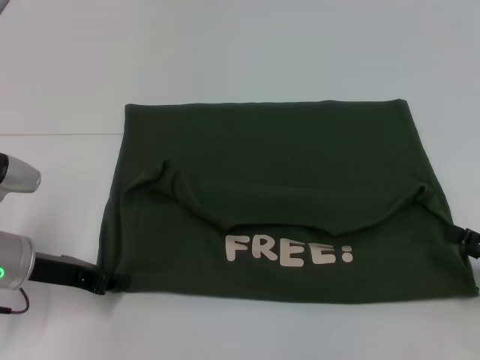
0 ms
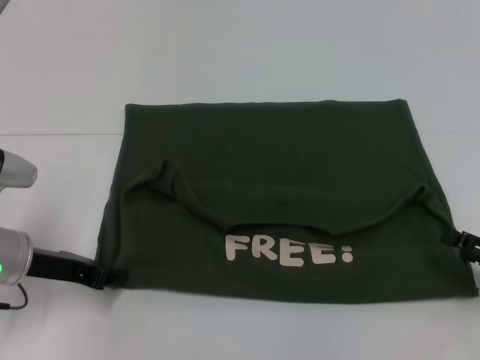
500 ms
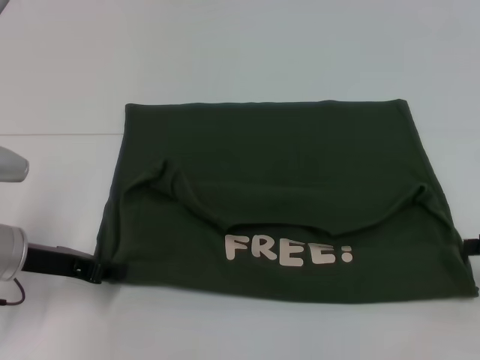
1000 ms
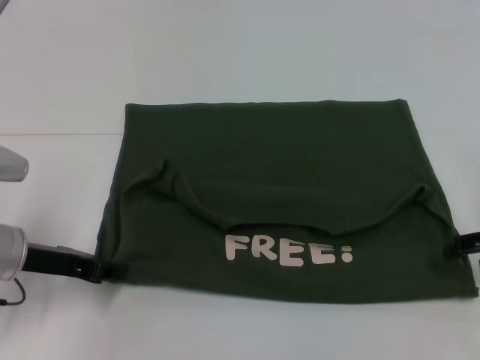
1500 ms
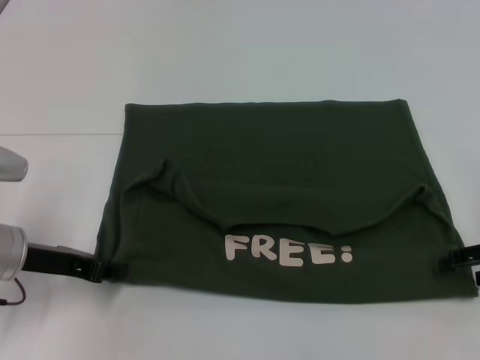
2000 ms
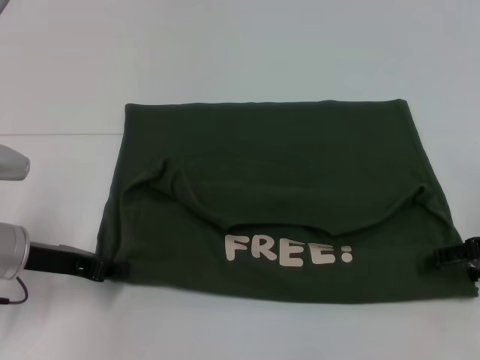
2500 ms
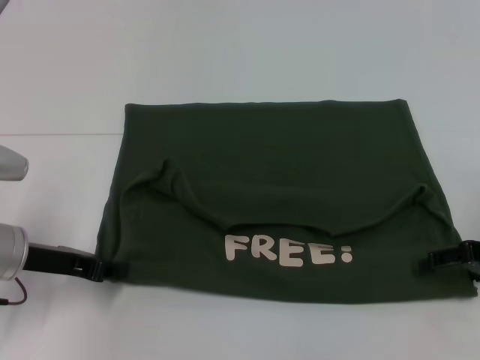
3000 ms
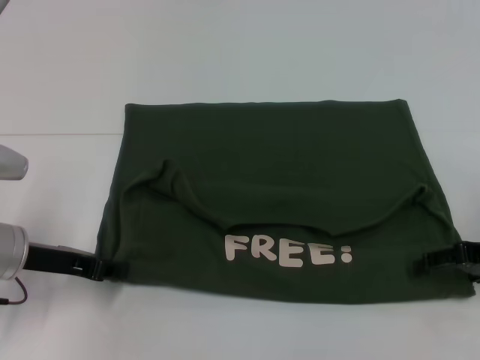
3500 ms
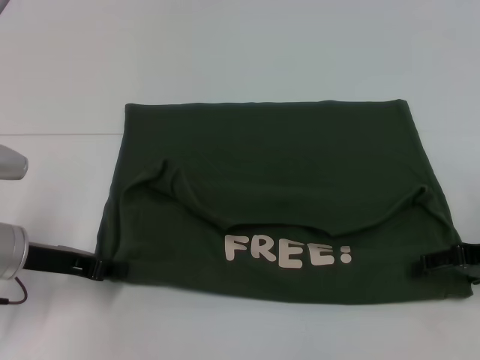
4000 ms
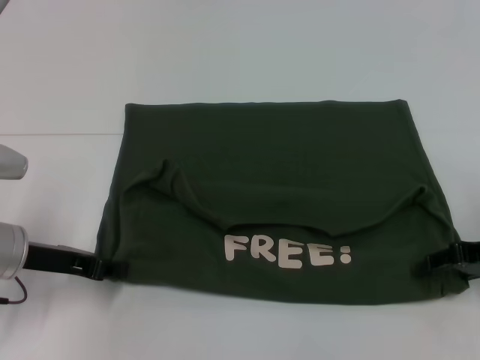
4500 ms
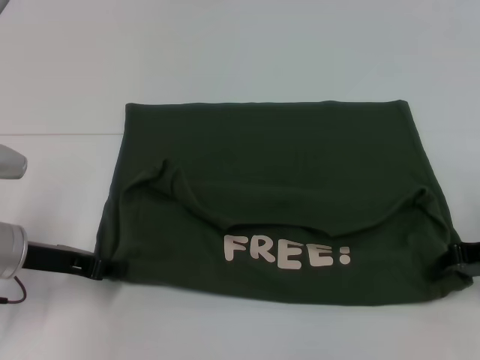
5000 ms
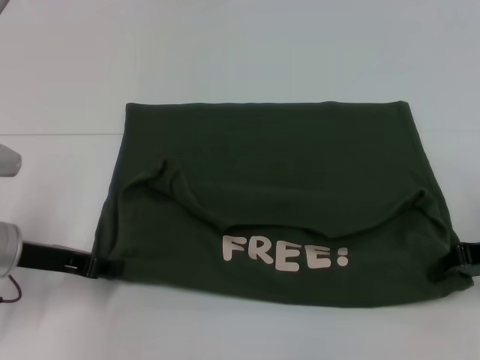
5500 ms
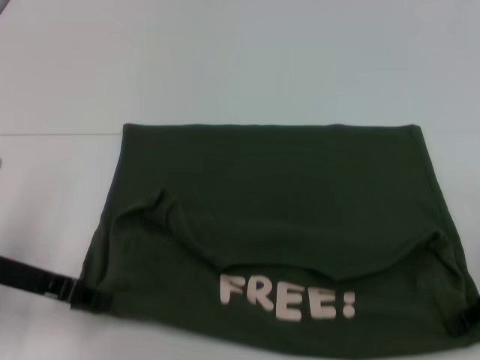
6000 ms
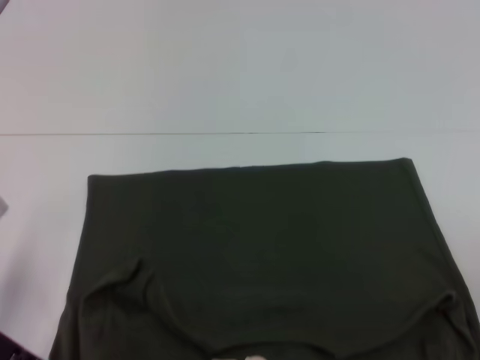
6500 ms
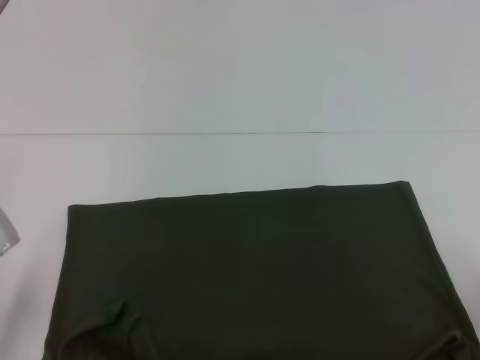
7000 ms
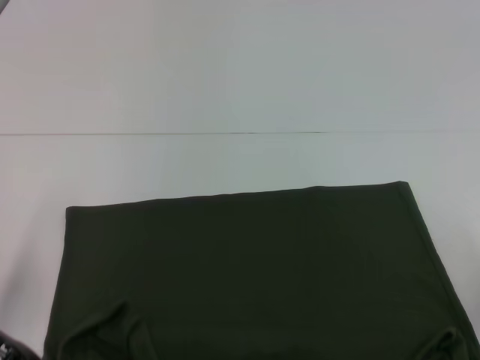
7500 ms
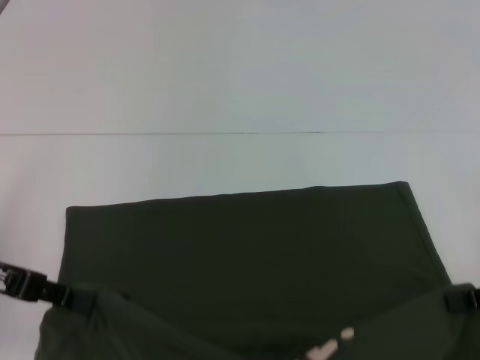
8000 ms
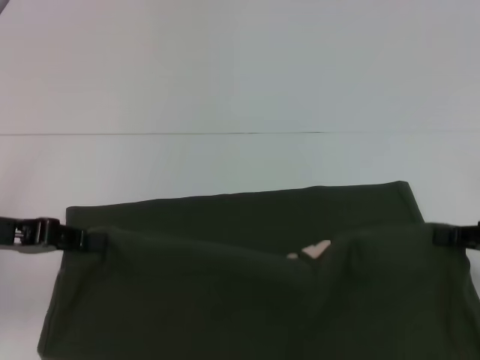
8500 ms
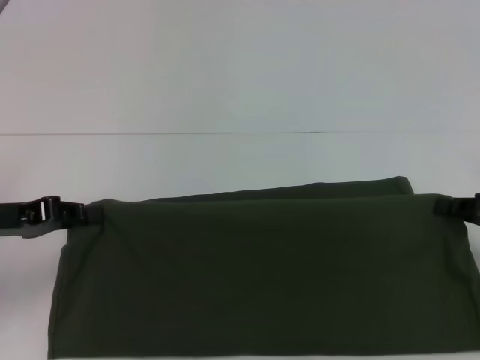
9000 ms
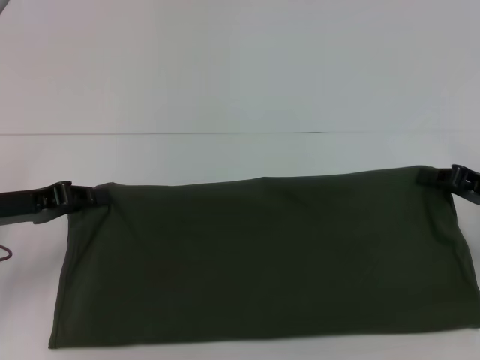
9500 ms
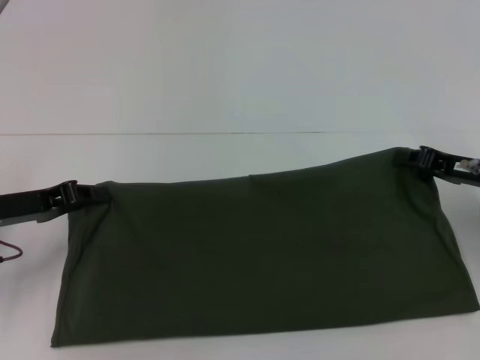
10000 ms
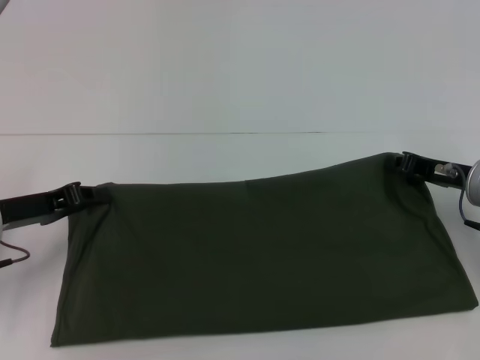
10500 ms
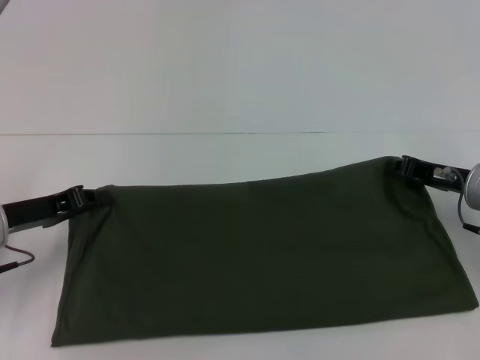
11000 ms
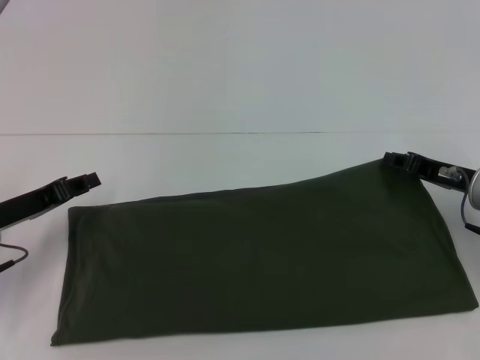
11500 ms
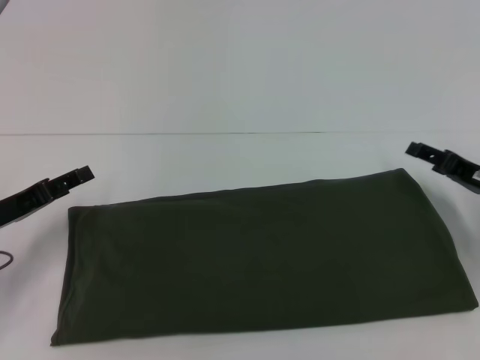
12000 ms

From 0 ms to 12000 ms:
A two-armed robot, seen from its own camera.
Step, from 0 ms to 7500 ms: Pull the clothes with your left hand.
Step, from 0 ms to 7500 ms: Pull the clothes with your right hand.
From 0 ms to 2000 ms: The right gripper moves forward and upward, approximately 10 cm.
From 2000 ms to 4000 ms: The grippers move only a little.
From 4000 ms to 6000 ms: The right gripper closes up.
From 6000 ms to 8000 ms: The left gripper ends up approximately 5 cm from where it was.
From 8000 ms to 10000 ms: The left gripper shifts about 5 cm downward. The right gripper shifts roughly 10 cm forward and to the left.
From 10000 ms to 12000 ms: The left gripper opens up; the right gripper opens up.

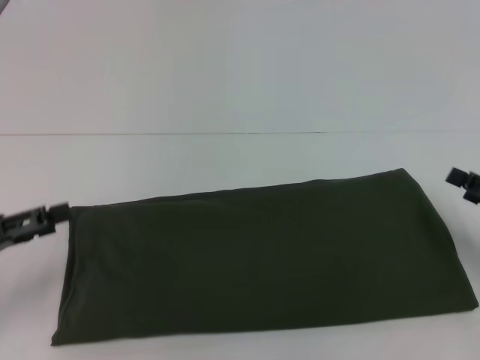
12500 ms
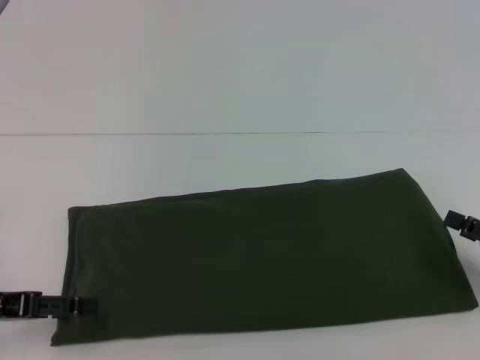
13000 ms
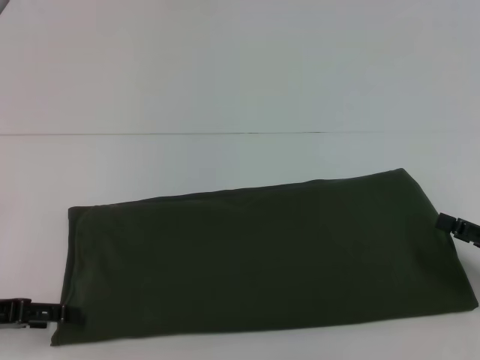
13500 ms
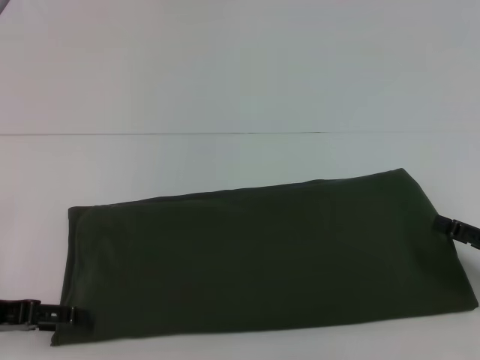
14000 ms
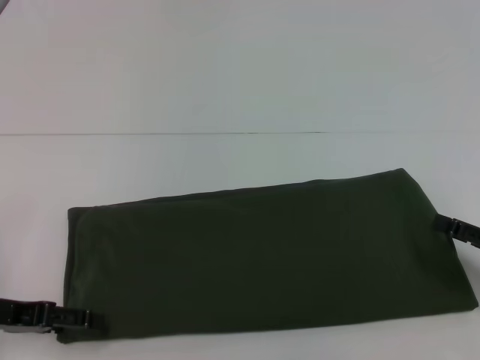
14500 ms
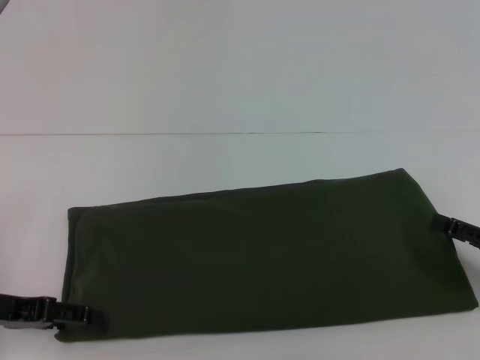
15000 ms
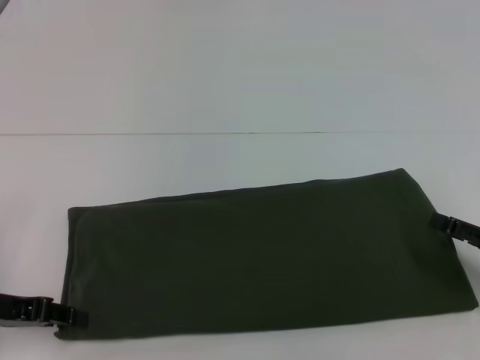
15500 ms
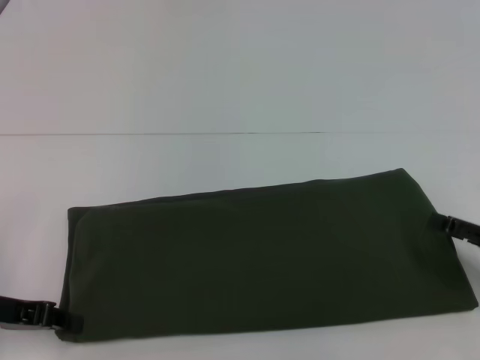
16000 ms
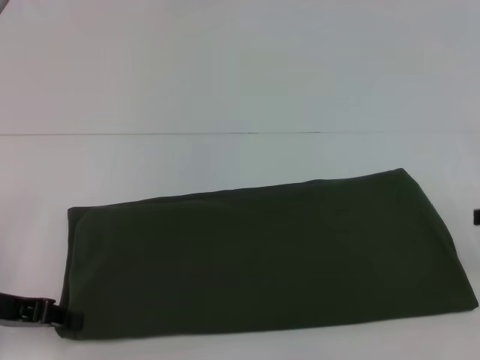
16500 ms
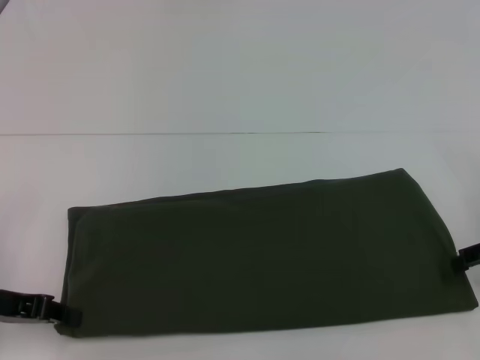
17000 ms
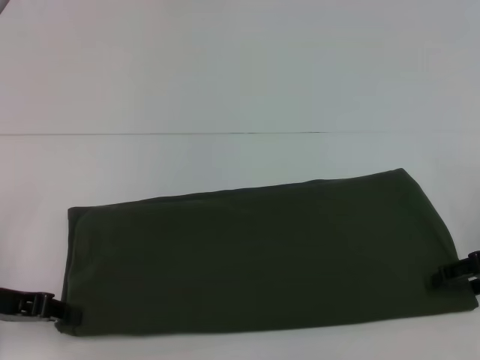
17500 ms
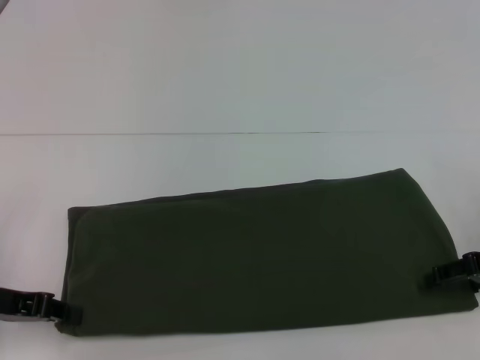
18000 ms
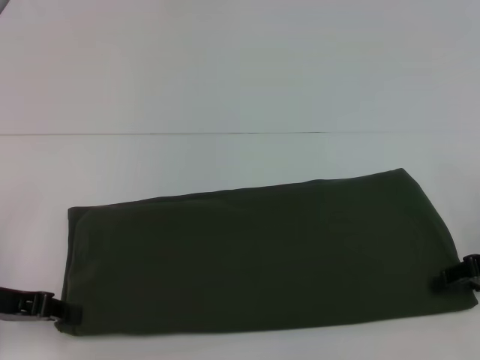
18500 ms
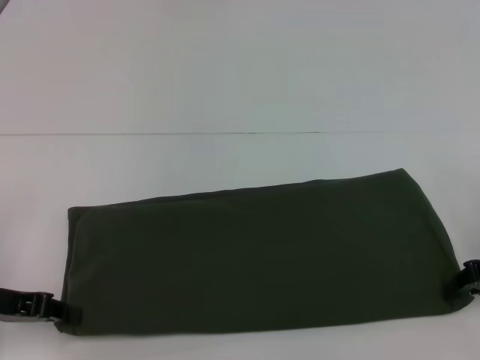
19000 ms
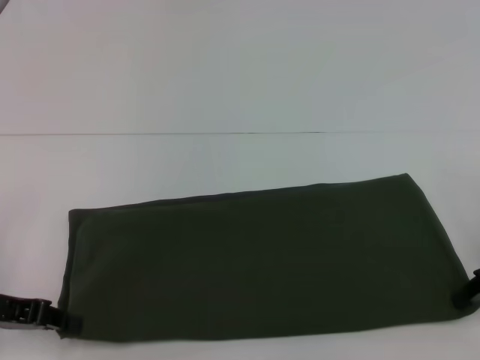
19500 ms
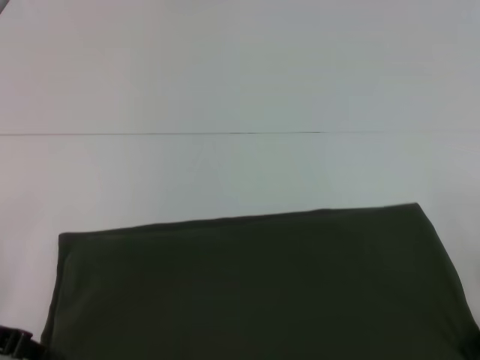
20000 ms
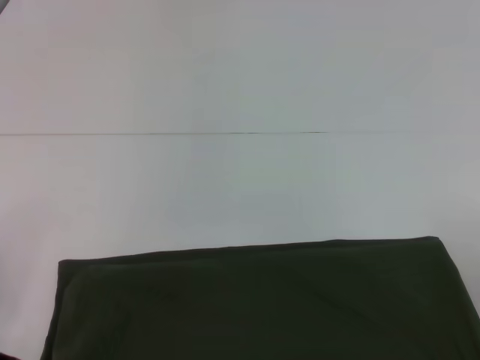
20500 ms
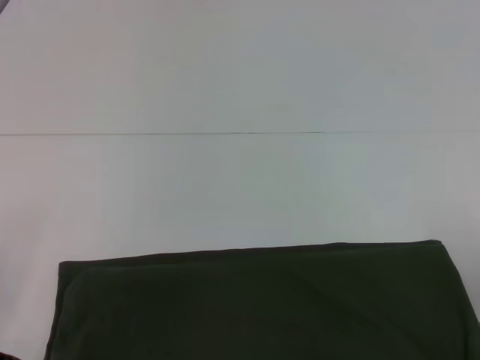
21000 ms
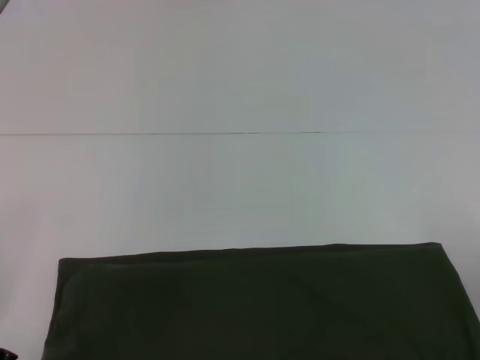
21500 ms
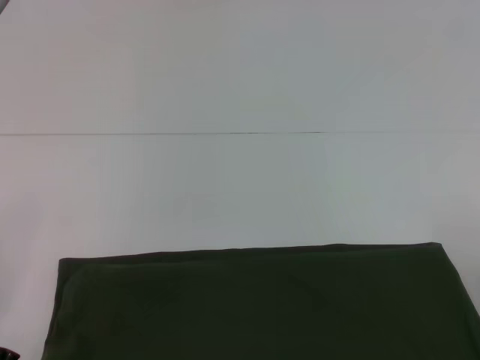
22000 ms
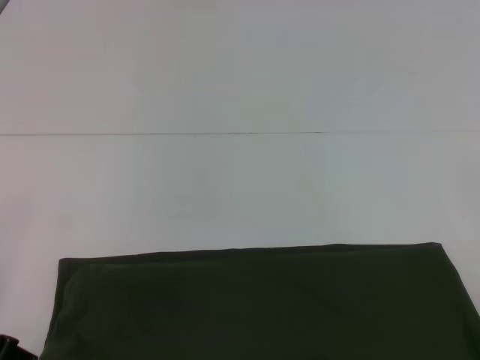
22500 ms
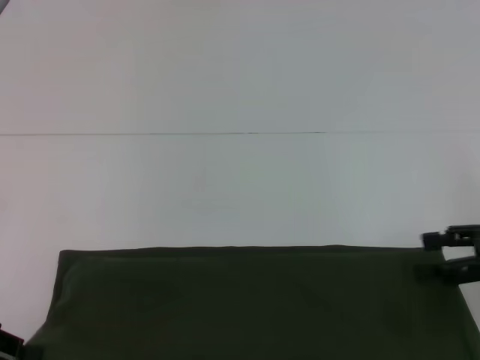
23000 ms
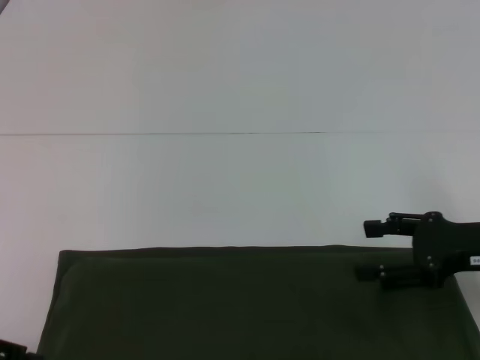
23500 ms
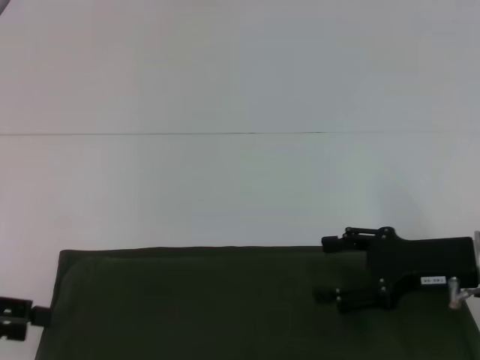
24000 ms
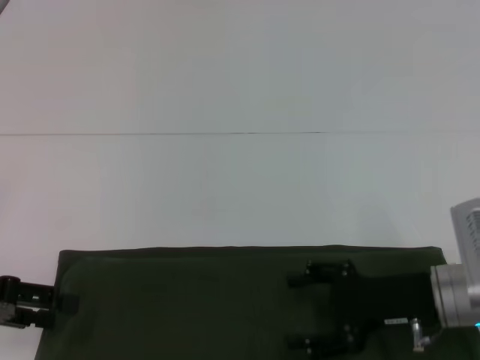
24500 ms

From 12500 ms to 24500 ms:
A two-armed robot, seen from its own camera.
From 14500 ms to 16500 ms: The left gripper closes up; the right gripper travels upward and forward by approximately 10 cm.
From 16500 ms to 18500 ms: The right gripper travels to the left by roughly 5 cm.
From 18500 ms to 20500 ms: The right gripper is displaced backward by roughly 5 cm, and closes.
From 20500 ms to 22500 ms: The right gripper goes approximately 5 cm upward, and opens.
From 22500 ms to 24500 ms: The right gripper heads to the left and downward, covering approximately 20 cm, and opens, while the left gripper opens its fingers.

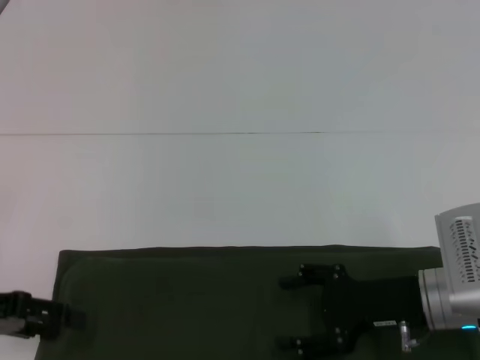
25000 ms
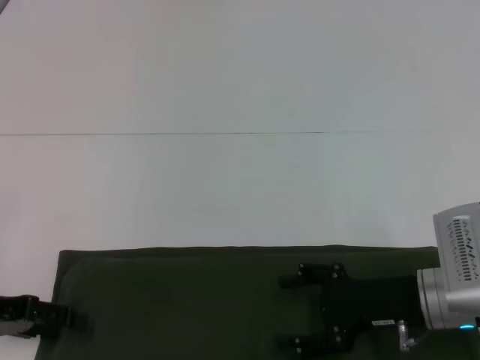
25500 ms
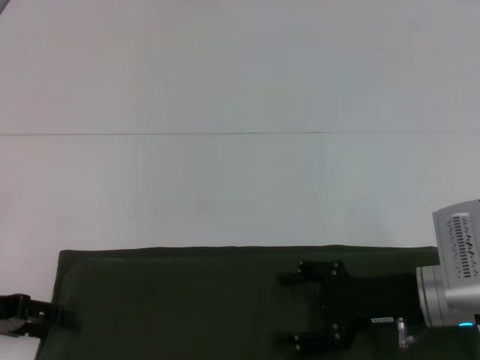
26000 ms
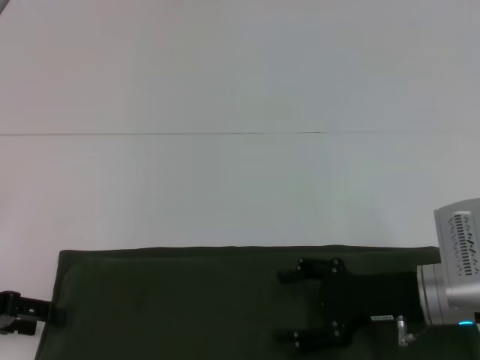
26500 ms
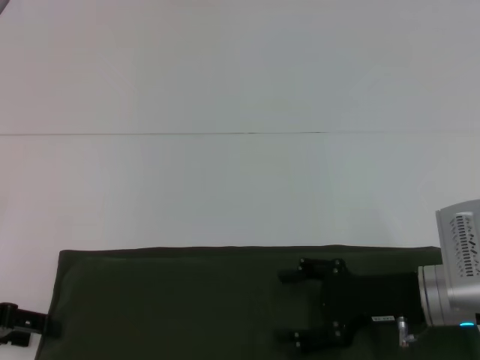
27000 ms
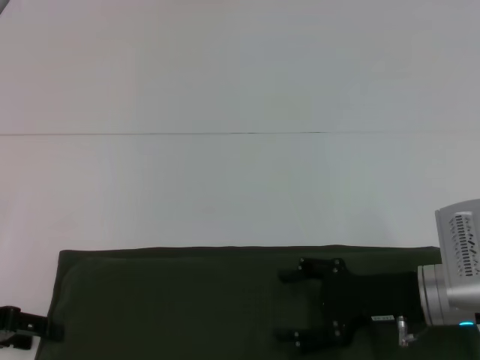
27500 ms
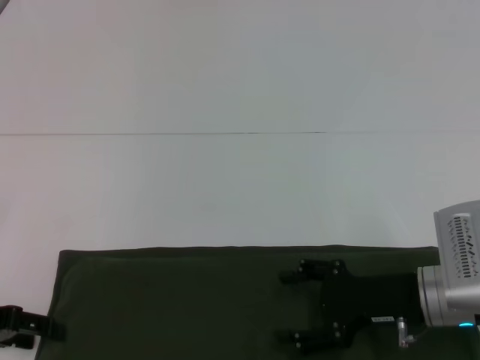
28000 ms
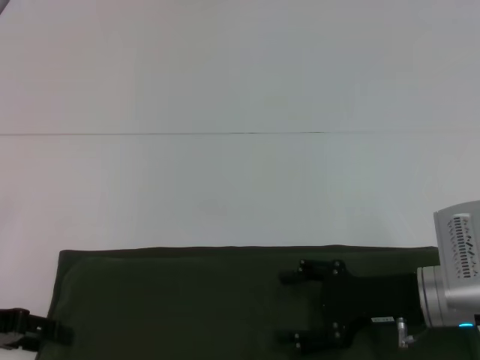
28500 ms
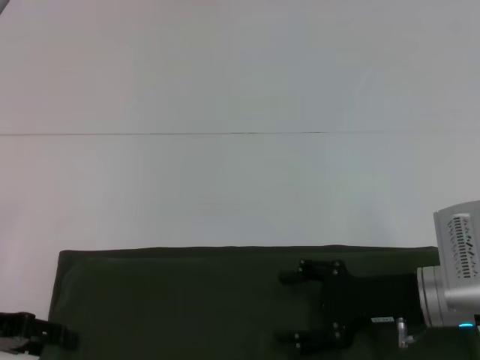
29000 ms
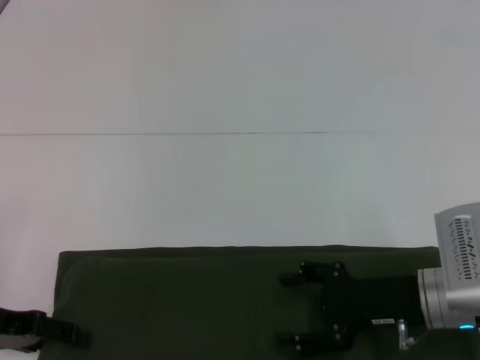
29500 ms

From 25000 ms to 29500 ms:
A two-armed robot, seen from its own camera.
From 25000 ms to 29500 ms: The grippers move only a little.
